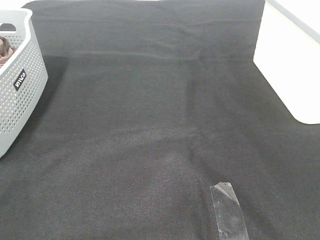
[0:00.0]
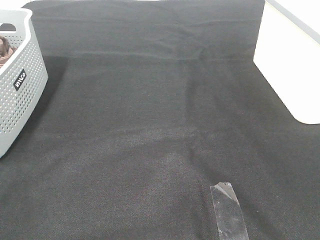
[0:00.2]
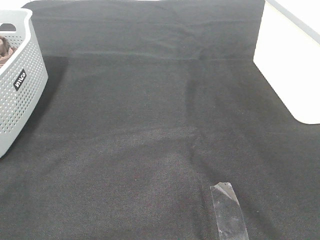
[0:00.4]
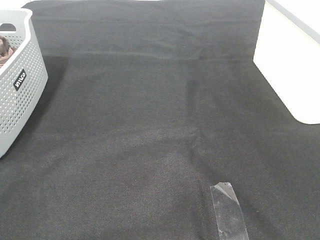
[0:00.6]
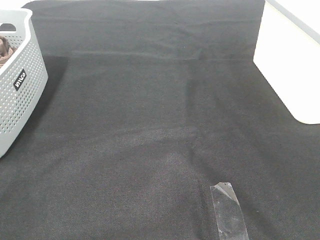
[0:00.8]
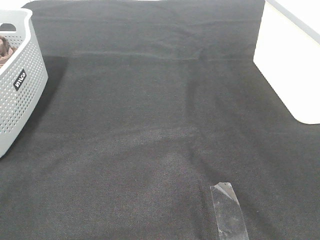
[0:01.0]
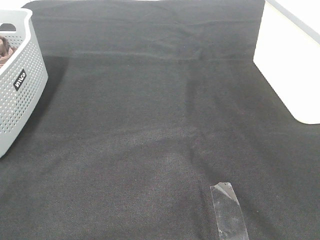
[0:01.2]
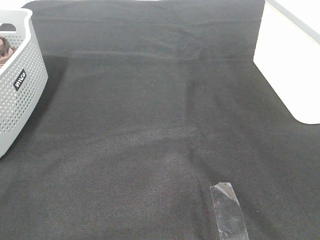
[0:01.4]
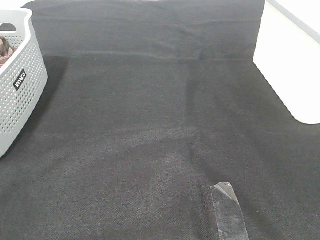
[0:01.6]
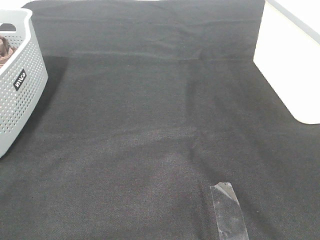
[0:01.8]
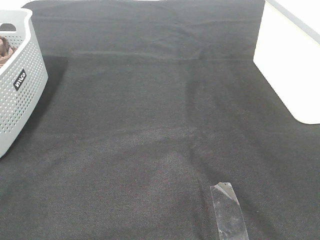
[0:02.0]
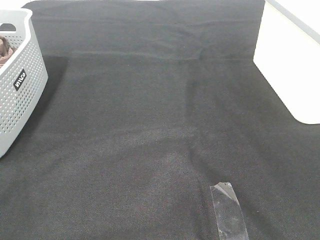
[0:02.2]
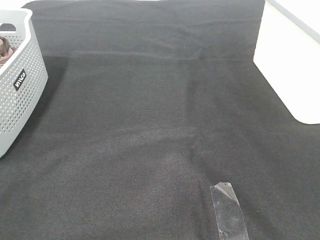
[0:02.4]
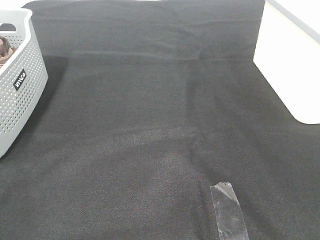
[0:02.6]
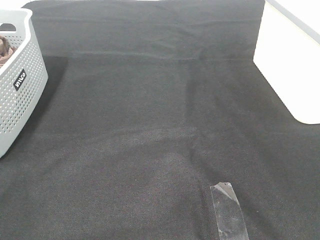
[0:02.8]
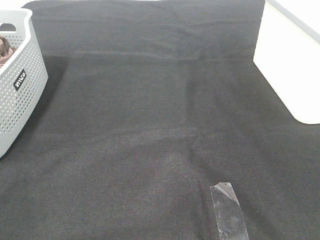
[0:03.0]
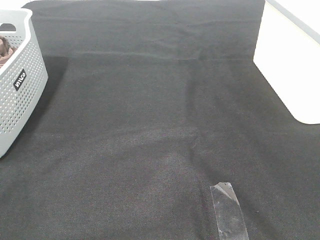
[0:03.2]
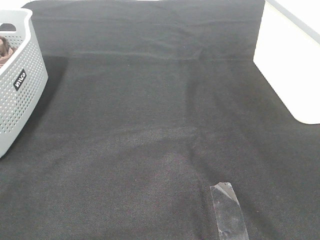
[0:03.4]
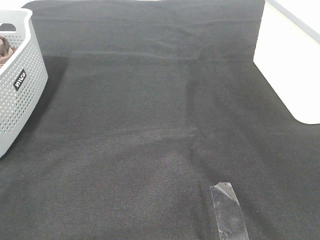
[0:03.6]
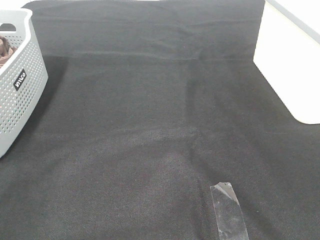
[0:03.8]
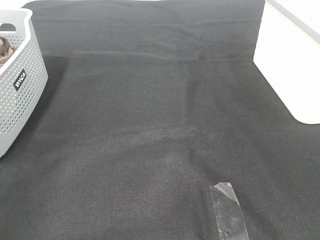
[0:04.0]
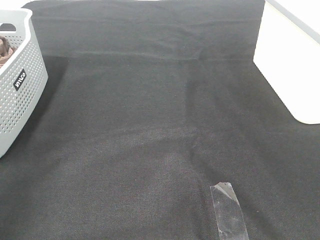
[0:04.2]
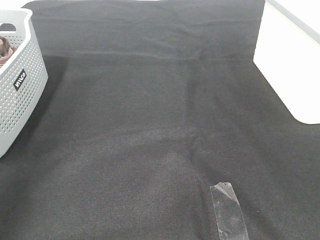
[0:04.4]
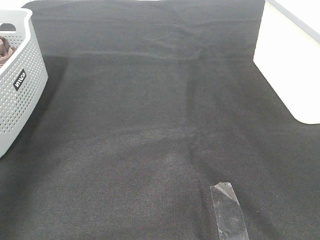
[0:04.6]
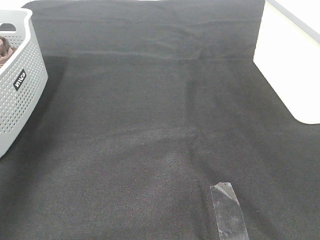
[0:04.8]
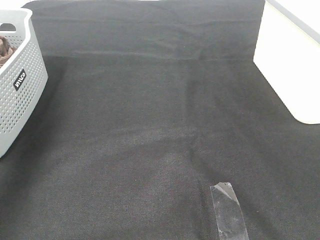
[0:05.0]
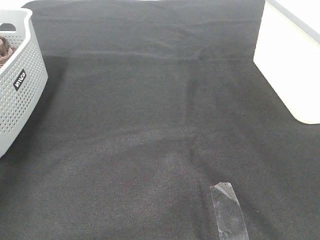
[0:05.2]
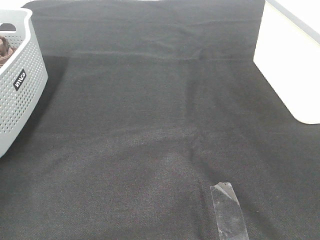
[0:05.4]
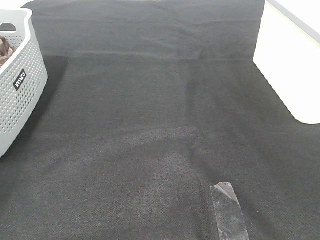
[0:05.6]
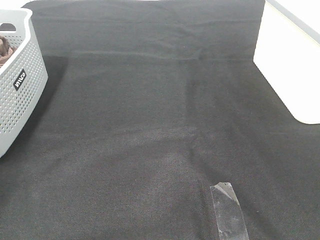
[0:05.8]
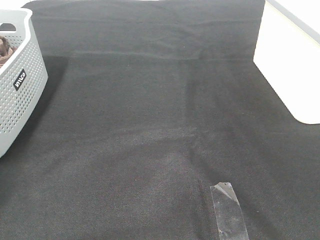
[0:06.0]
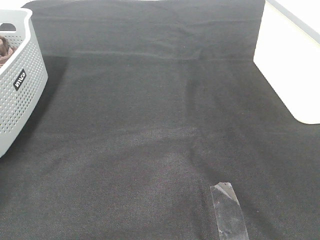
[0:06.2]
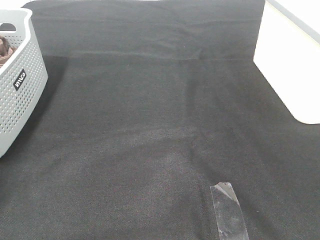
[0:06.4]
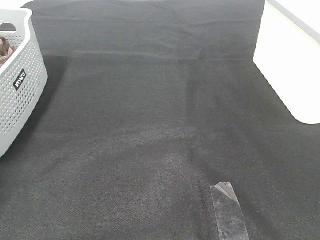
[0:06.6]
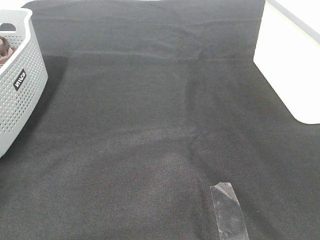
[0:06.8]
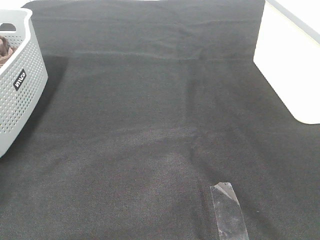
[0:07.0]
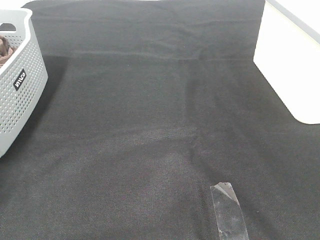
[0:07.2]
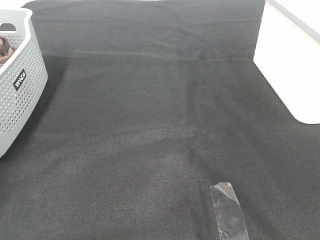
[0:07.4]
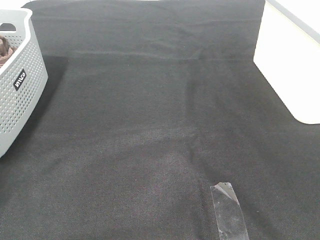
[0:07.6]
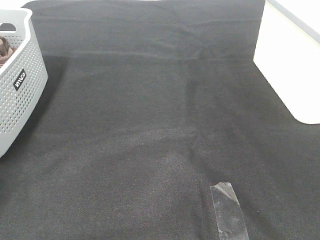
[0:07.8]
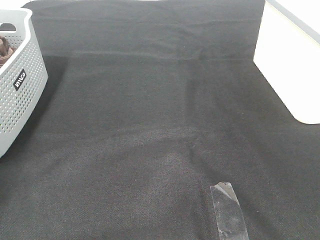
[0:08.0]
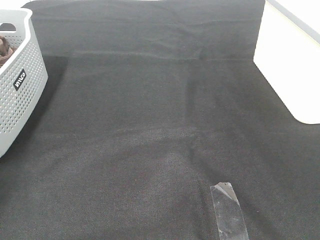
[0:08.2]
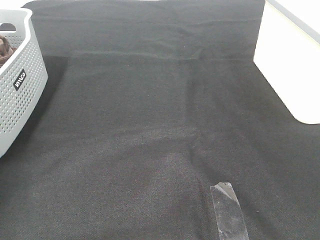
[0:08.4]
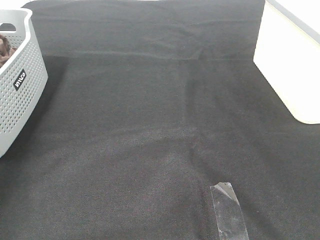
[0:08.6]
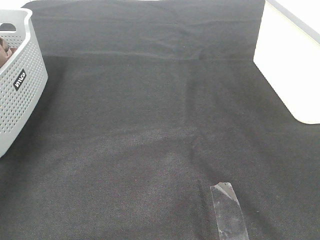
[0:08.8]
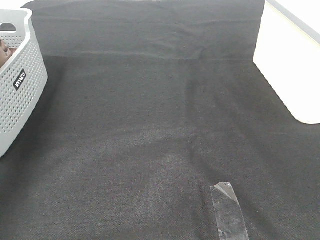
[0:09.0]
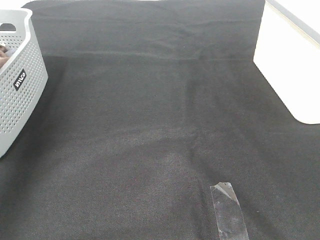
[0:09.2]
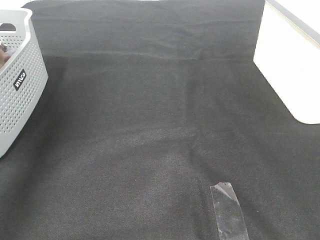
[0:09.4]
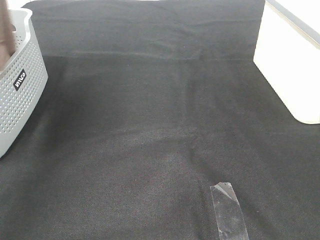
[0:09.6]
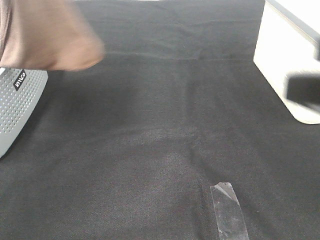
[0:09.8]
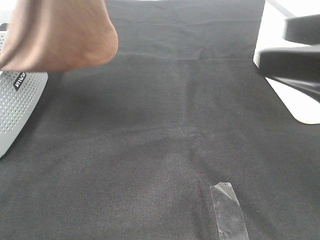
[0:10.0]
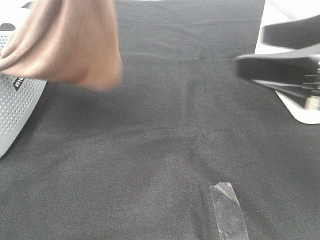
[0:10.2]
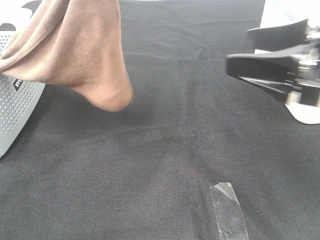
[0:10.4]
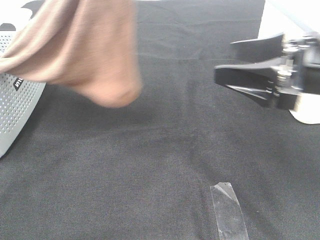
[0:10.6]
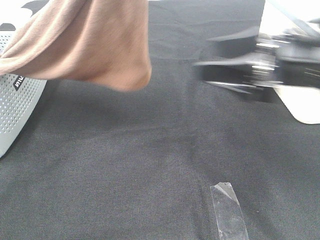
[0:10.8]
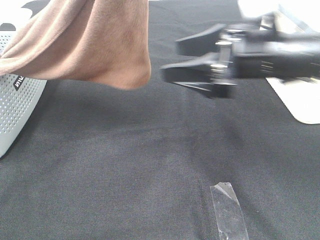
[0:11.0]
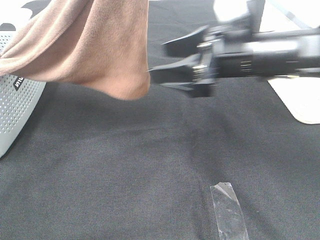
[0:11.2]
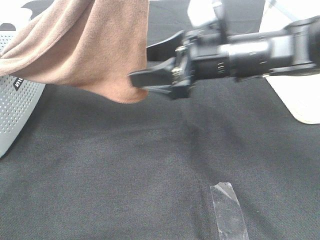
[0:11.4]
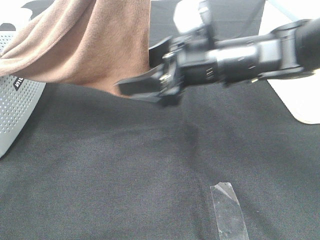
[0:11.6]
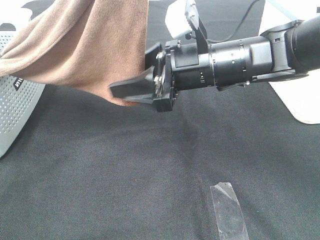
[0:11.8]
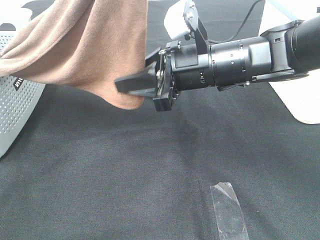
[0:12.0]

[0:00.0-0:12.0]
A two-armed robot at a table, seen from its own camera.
Task of the whole recording: Remove the towel and place it.
Step, 0:09.2 to 0:12.0: Right hand: grab a corner of the brown towel and straighten it.
0:00.0 to 0:03.0: Both grippers stay put.
0:03.0 to 0:04.4: The left gripper moves forward and upward, about 25 cm.
0:04.4 to 0:06.0: The left gripper goes roughly 35 cm forward, downward and to the left.
0:07.6 to 0:09.0: The left gripper moves upward and to the right, approximately 30 cm.
0:09.0 to 0:10.4: The right gripper goes approximately 20 cm forward, while the left gripper is displaced to the right by about 25 cm.
0:10.4 to 0:12.0: The right gripper is displaced to the left and forward by some 15 cm, and closes up.

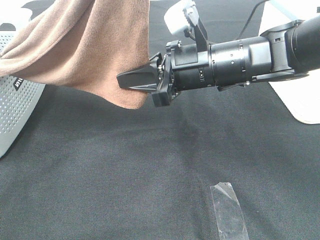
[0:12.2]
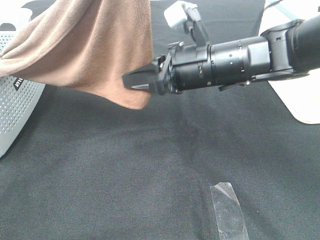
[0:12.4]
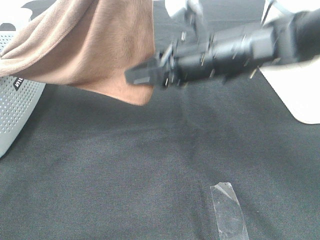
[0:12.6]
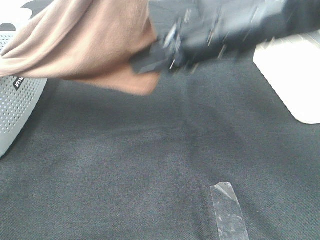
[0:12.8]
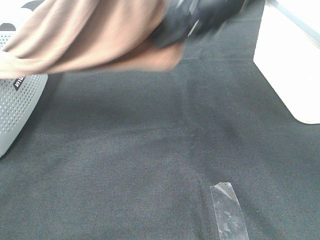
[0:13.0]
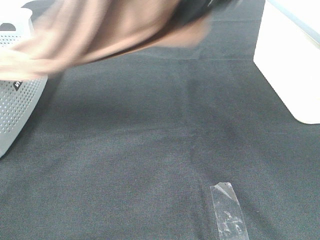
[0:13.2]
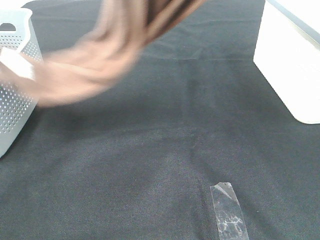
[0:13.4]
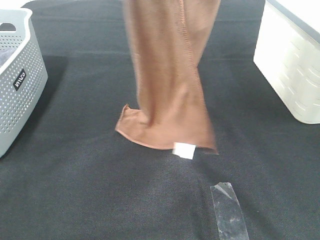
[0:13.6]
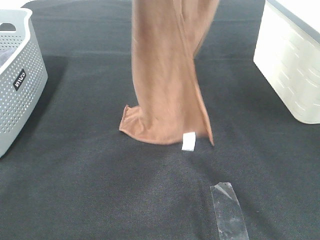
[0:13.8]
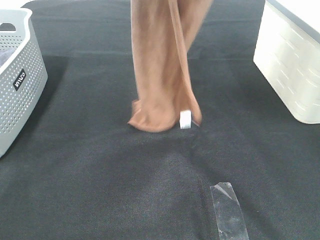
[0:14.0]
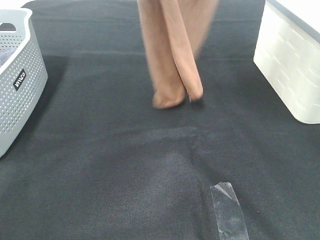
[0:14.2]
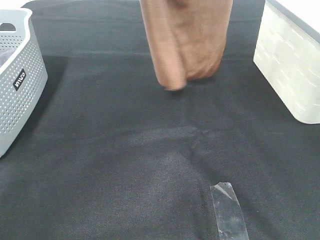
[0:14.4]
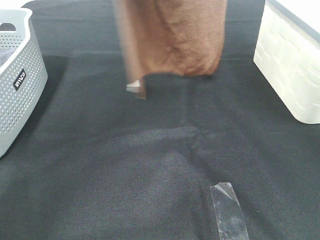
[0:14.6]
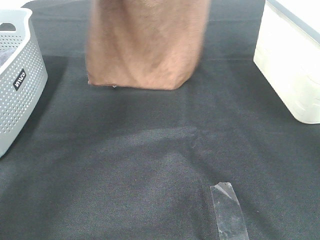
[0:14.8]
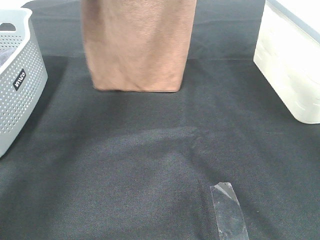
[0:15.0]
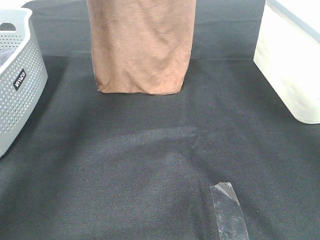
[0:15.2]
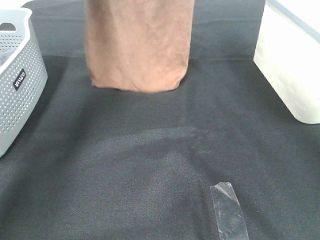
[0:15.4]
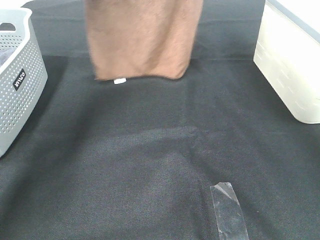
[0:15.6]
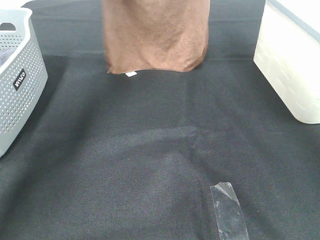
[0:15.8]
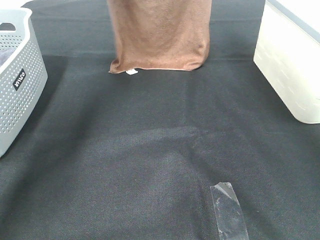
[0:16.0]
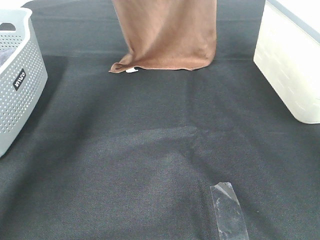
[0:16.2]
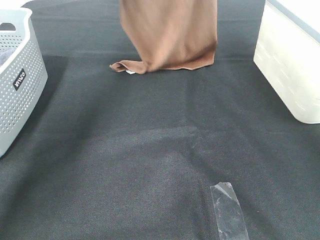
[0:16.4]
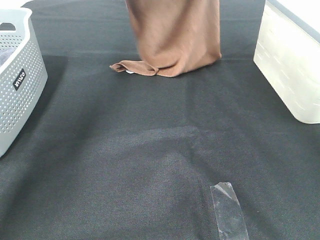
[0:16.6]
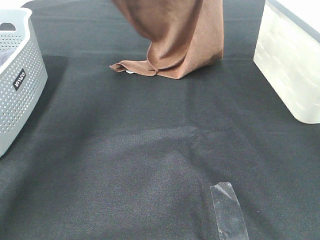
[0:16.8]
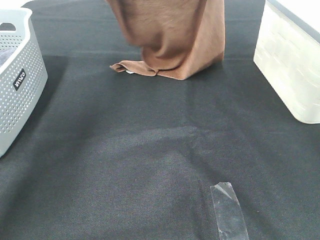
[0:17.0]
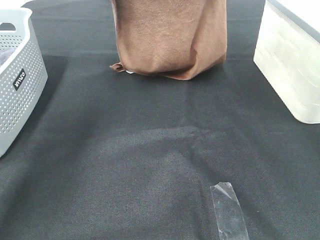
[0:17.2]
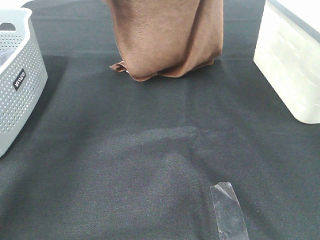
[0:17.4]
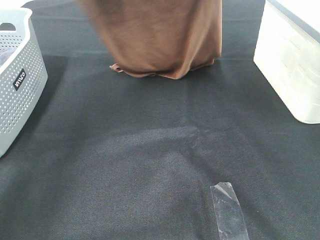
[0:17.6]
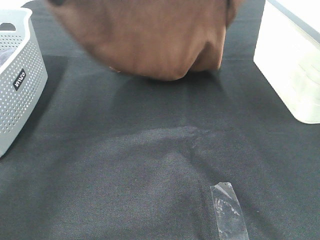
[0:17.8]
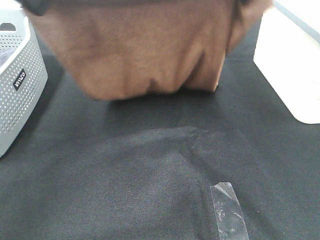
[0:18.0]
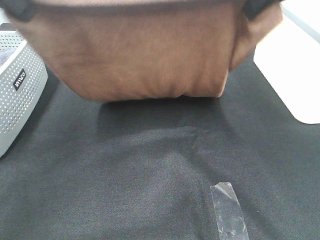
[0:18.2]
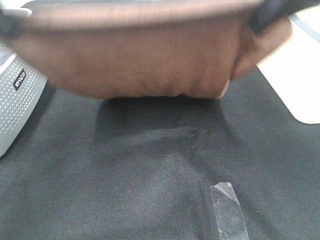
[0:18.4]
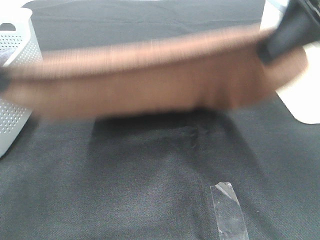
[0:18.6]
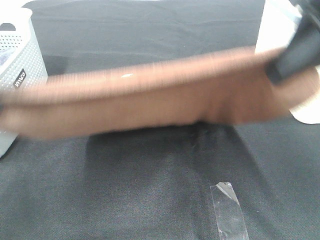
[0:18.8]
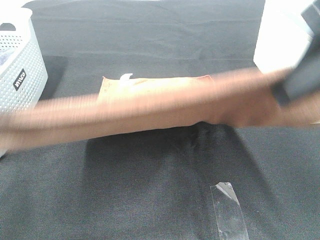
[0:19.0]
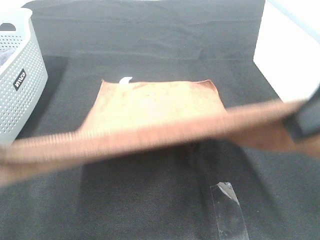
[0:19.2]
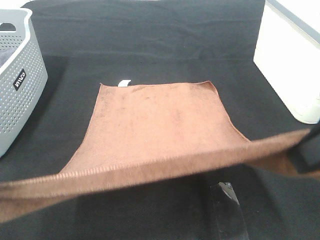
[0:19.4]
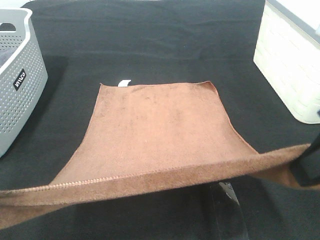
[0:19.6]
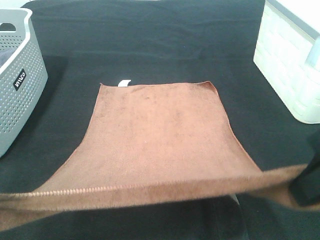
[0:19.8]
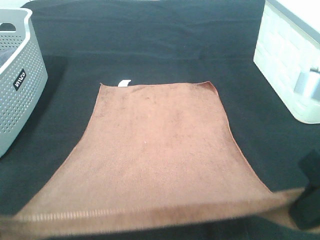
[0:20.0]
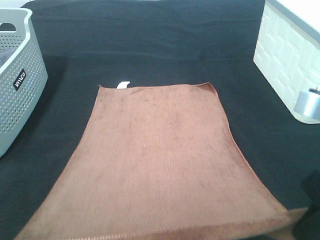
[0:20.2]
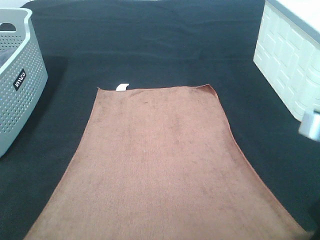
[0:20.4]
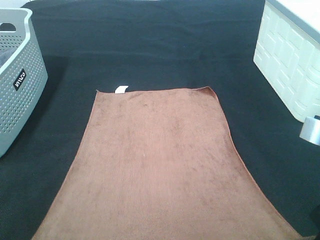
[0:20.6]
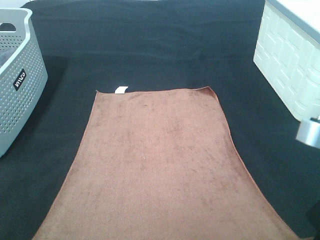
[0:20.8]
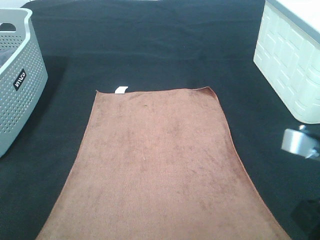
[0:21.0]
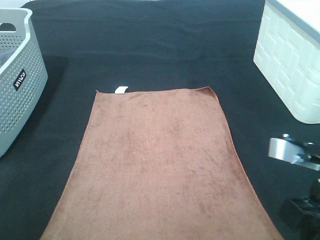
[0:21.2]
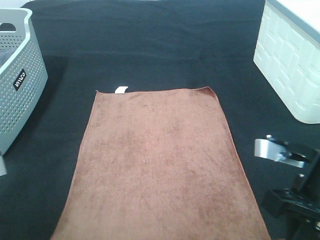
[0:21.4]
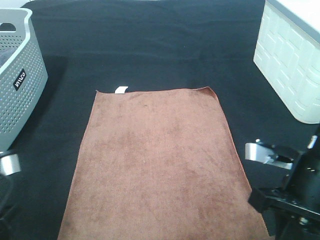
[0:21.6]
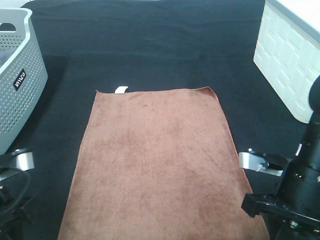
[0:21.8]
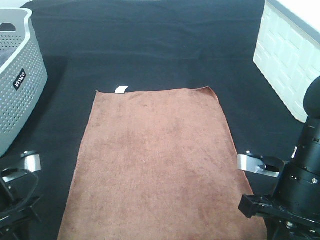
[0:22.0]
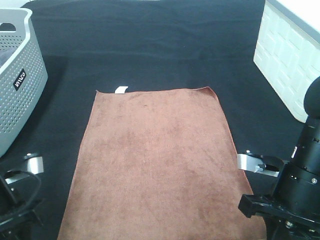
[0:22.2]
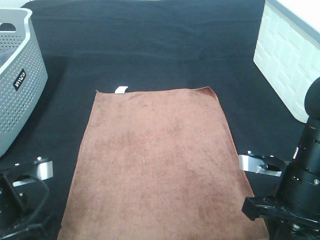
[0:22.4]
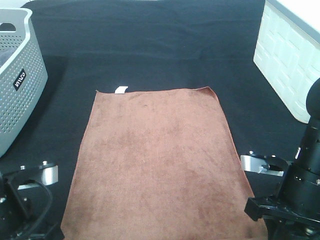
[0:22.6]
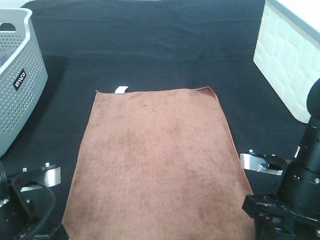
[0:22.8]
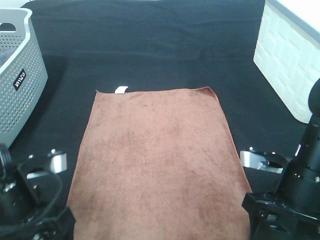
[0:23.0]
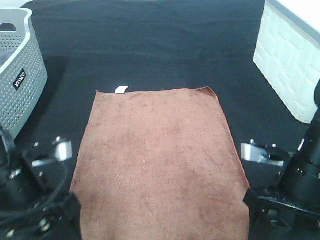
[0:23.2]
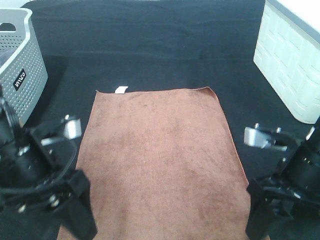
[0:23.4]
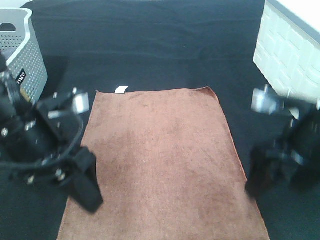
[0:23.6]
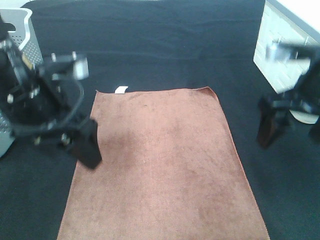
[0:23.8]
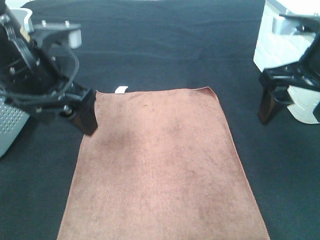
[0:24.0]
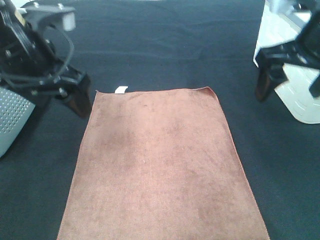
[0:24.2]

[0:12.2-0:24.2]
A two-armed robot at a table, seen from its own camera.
Task of the whole recording: Remove the towel and place it.
Step, 0:12.2 to 0:18.4: Left hand: spread the brown towel flat on the table.
Step, 0:12.2 to 0:18.4: Right hand: spread the brown towel flat on the table.
0:12.2 to 0:13.8: The right gripper travels upward by roughly 30 cm. The left gripper goes about 5 cm forward.
0:13.8 to 0:15.2: The right gripper goes about 10 cm forward; the left gripper heads forward, to the left and downward, covering roughly 20 cm.
0:15.2 to 0:16.6: Both grippers travel together downward, approximately 5 cm.
0:16.6 to 0:18.2: Both grippers travel together backward, approximately 25 cm.
0:18.2 to 0:19.8: The two grippers go roughly 20 cm backward and downward.
0:19.8 to 0:21.2: Both grippers move downward, roughly 10 cm.
0:21.2 to 0:22.6: The right gripper goes some 5 cm downward, while the left gripper heads downward and forward, covering approximately 10 cm, and opens.
0:22.6 to 0:24.2: The left gripper heads forward and upward, covering about 20 cm, and opens its fingers. The right gripper travels upward and forward by about 20 cm, and opens.
